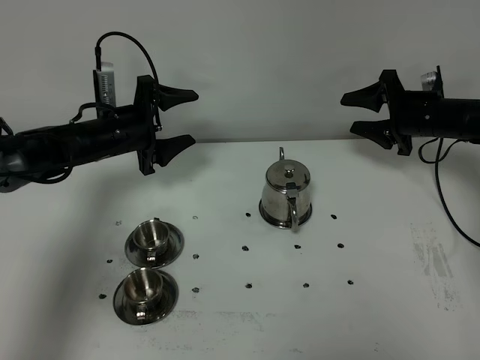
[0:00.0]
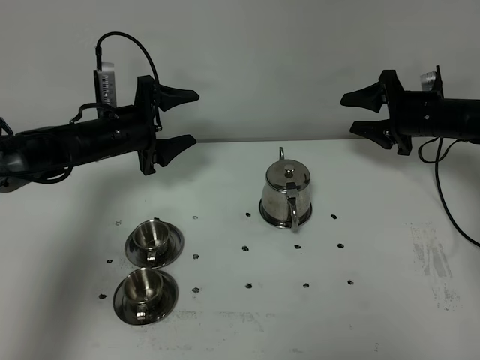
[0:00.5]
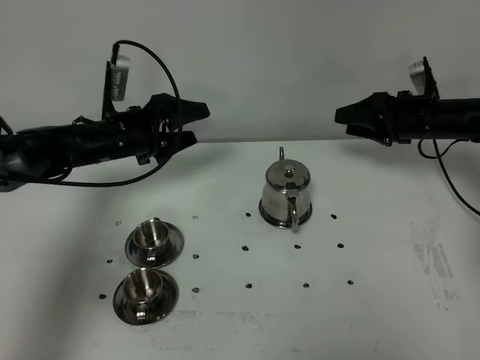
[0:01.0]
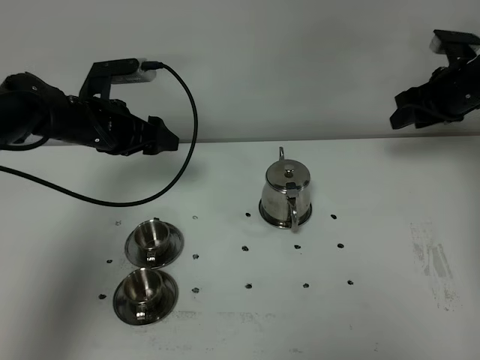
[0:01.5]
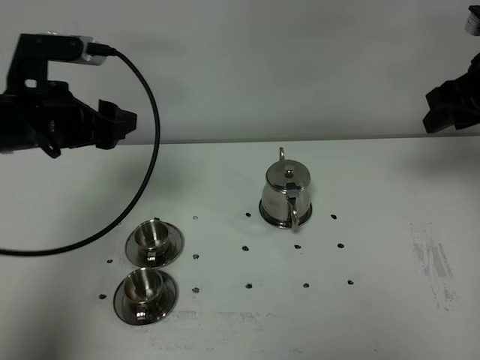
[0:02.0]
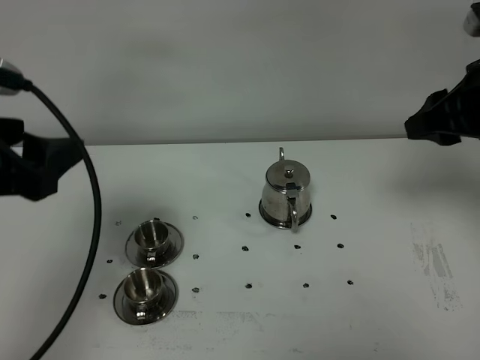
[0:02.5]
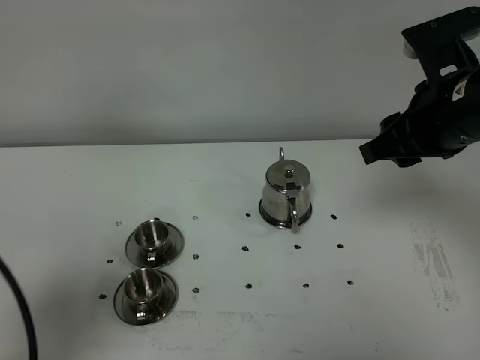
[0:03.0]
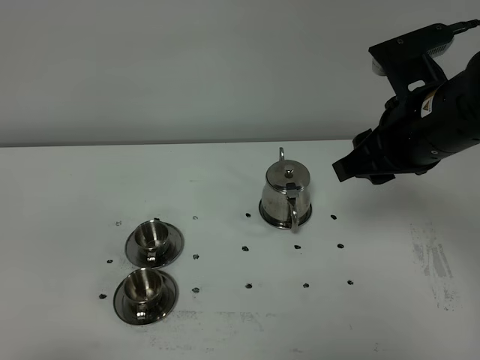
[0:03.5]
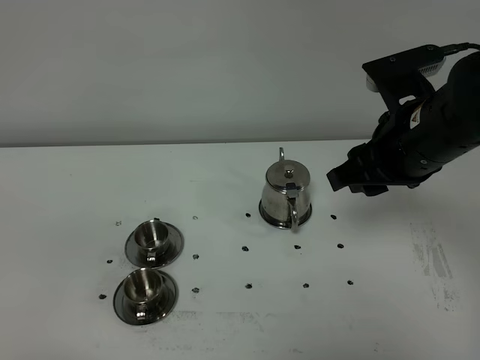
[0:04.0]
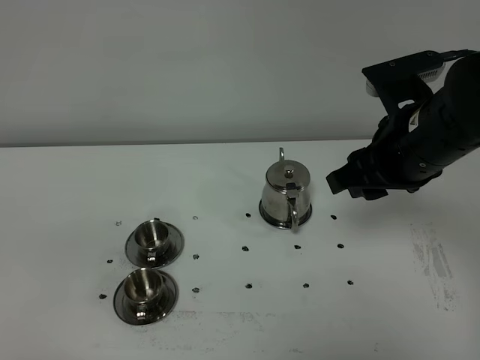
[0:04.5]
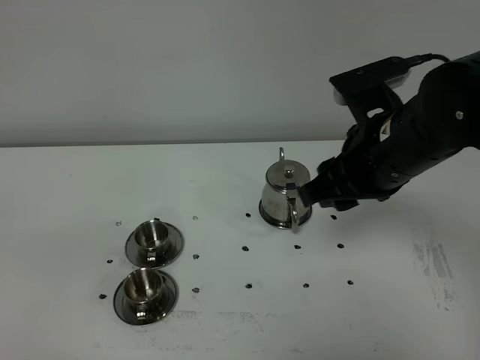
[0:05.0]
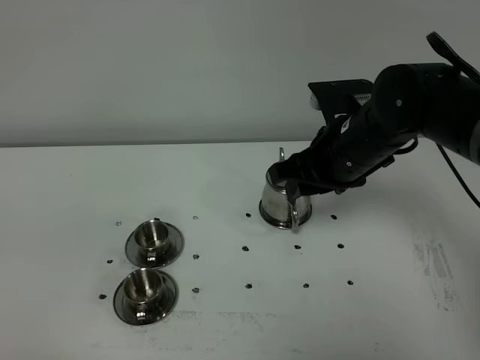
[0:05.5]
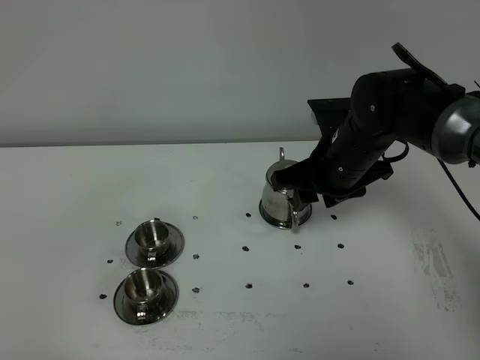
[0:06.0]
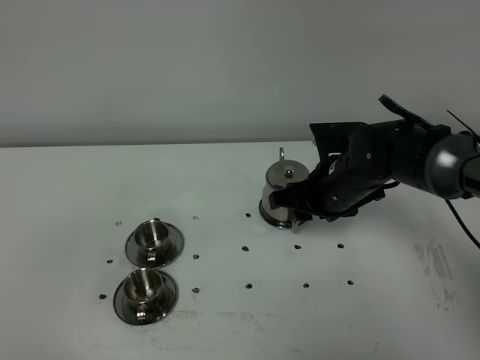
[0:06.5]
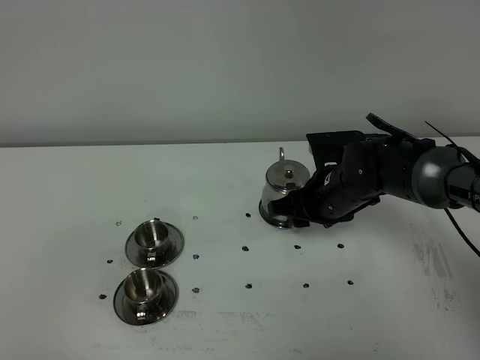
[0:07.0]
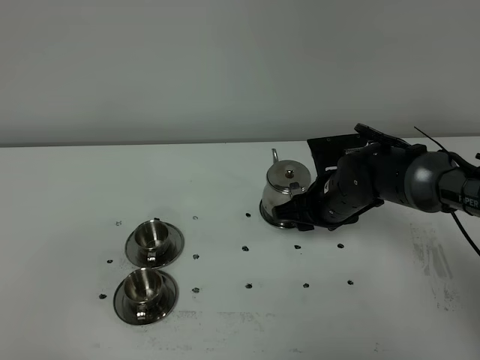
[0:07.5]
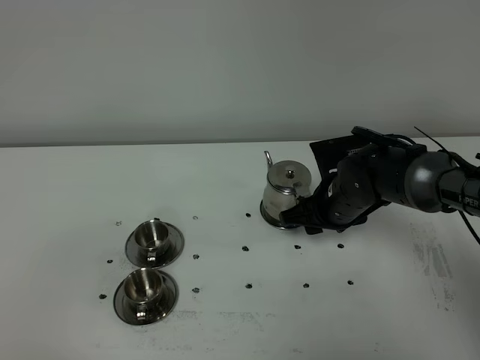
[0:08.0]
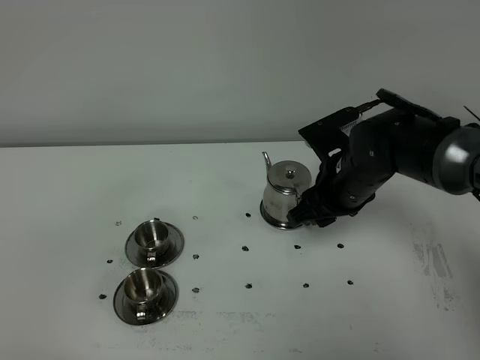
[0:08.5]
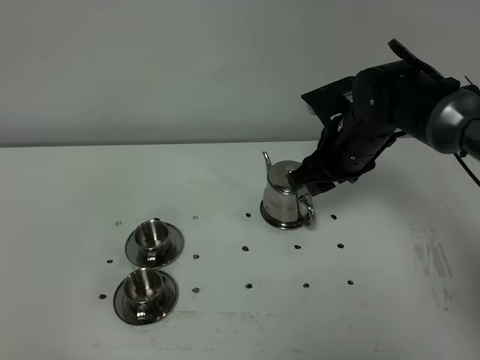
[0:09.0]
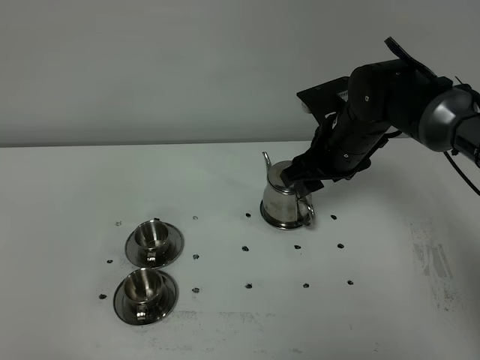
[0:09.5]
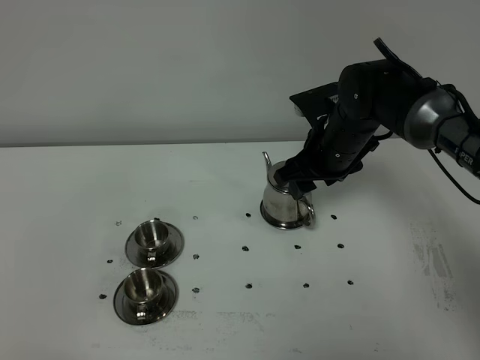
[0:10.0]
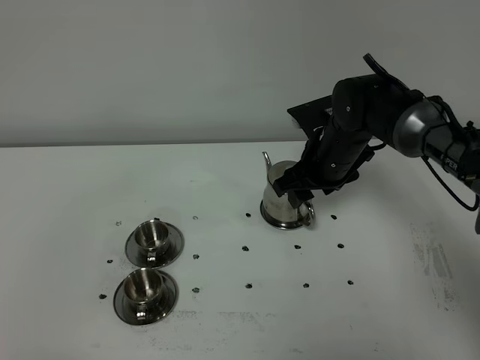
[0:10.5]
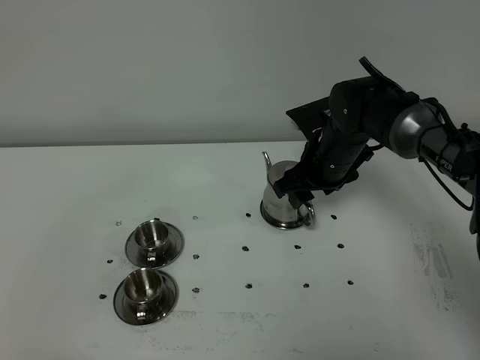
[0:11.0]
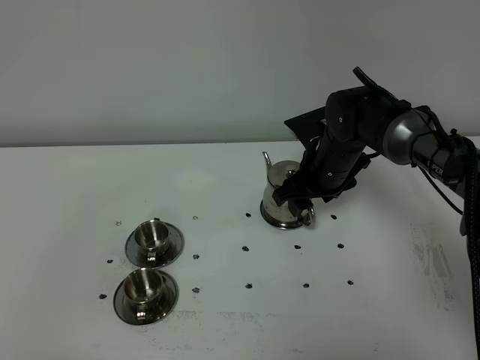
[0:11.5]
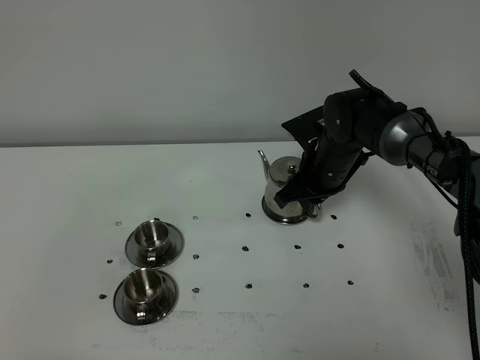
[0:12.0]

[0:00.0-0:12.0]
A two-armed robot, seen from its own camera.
Task of the whole recording: grasp the stainless steel teapot and pour the tea into the two stainless steel teacups one by one, put the stainless steel teapot back in its original place.
0:00.0 to 0:02.0: The grippers both shift upward and backward by about 20 cm.
0:02.0 to 0:04.0: The left gripper is displaced backward by some 35 cm. The right gripper moves to the left and backward, roughly 15 cm.
0:04.0 to 0:06.0: The right gripper travels downward, forward and to the left by about 15 cm.
0:06.0 to 0:08.0: The right gripper heads downward, covering about 10 cm.
0:08.0 to 0:10.0: The right gripper shifts about 5 cm upward.
0:10.0 to 0:12.0: The right gripper moves downward, about 5 cm, and closes its fingers.

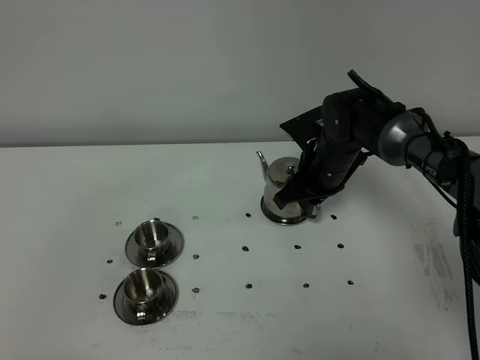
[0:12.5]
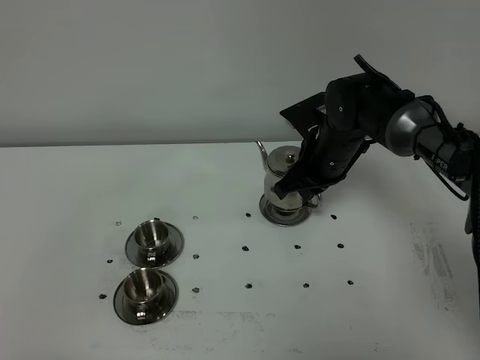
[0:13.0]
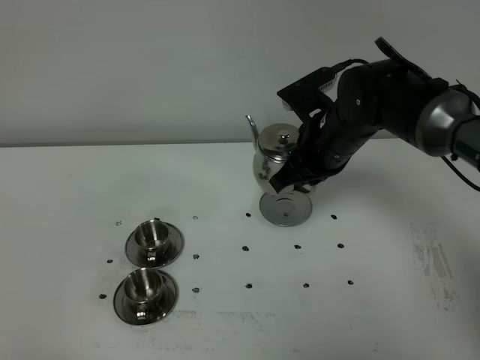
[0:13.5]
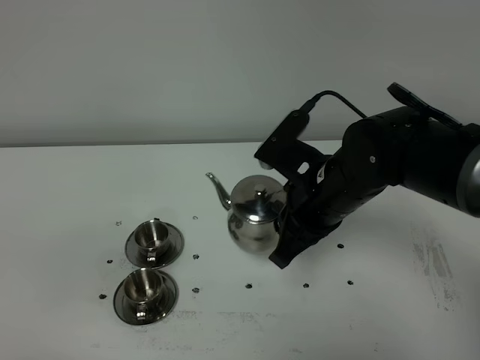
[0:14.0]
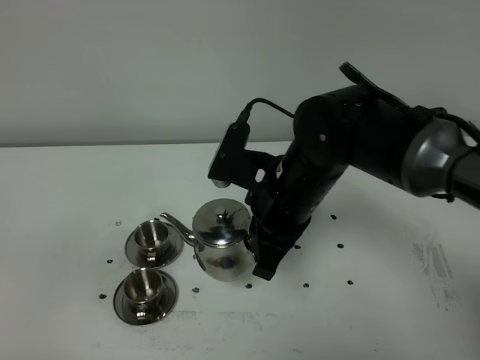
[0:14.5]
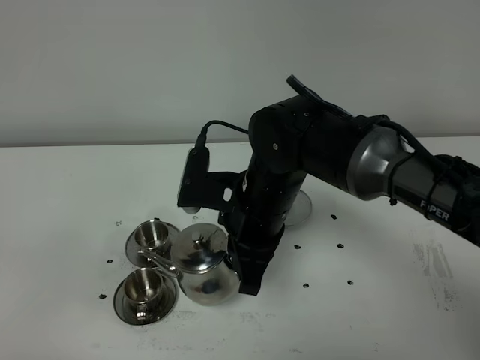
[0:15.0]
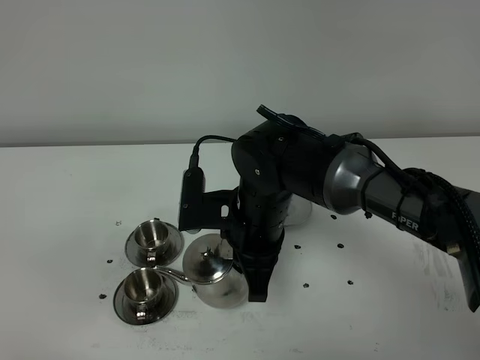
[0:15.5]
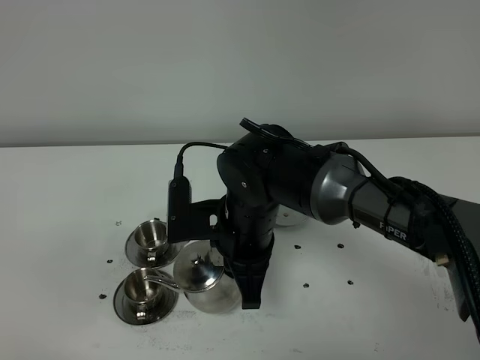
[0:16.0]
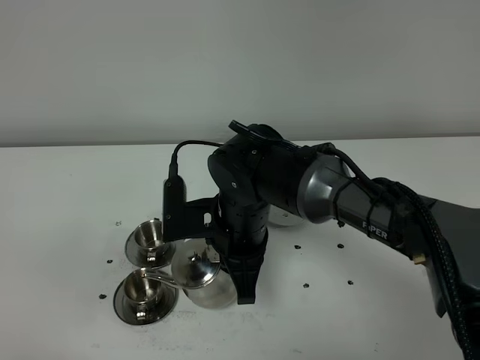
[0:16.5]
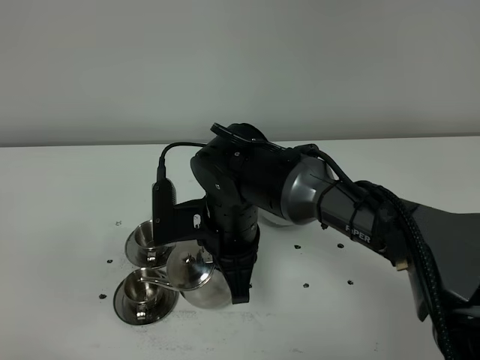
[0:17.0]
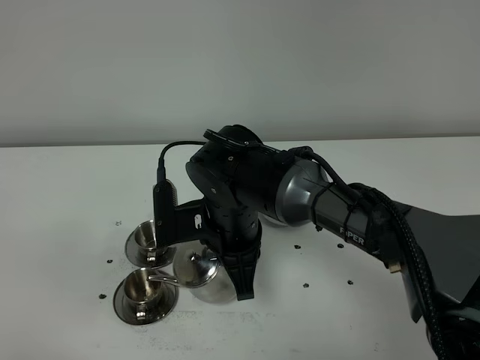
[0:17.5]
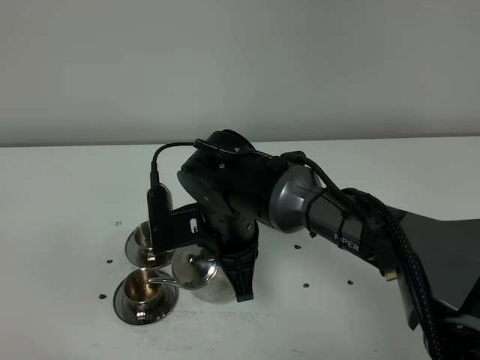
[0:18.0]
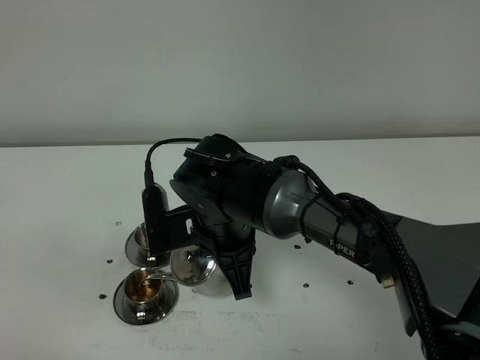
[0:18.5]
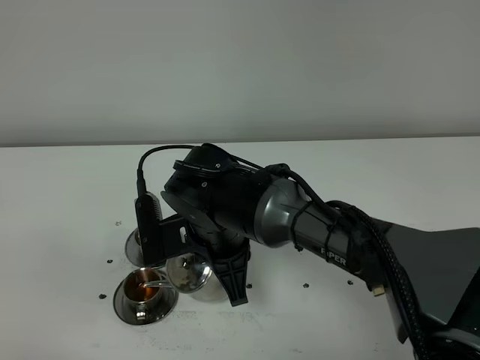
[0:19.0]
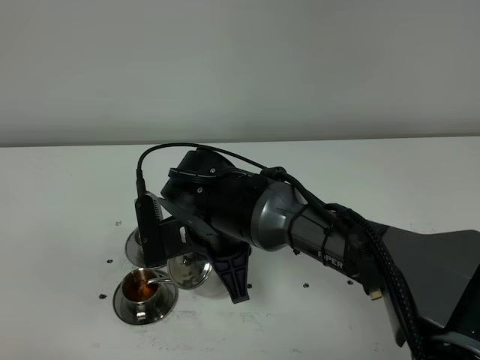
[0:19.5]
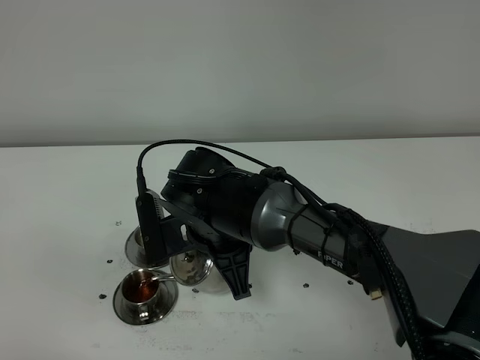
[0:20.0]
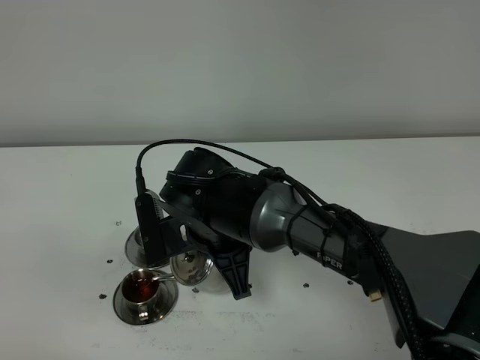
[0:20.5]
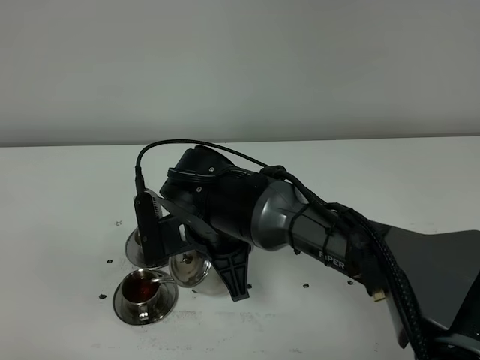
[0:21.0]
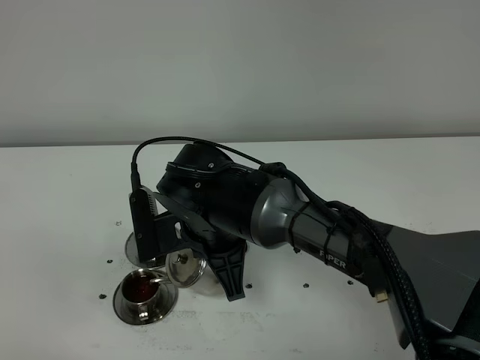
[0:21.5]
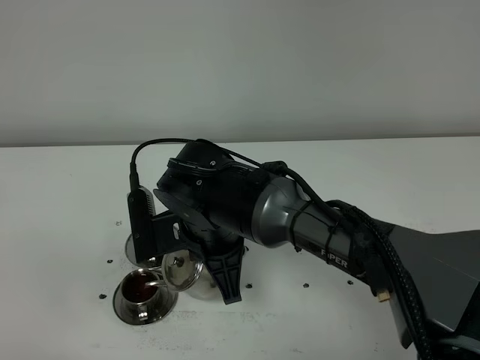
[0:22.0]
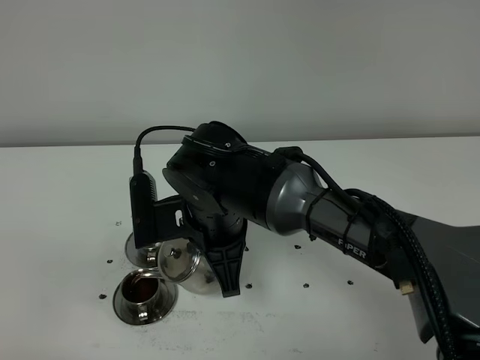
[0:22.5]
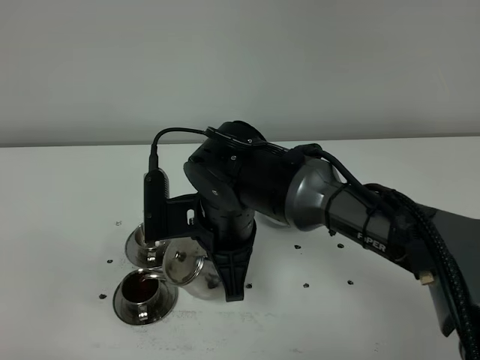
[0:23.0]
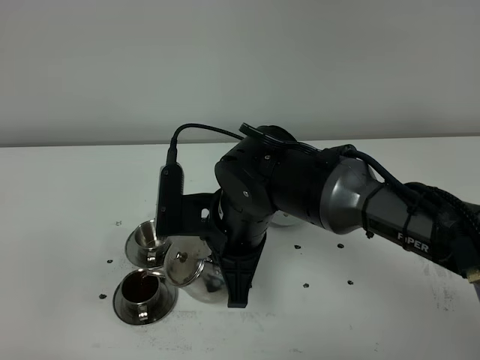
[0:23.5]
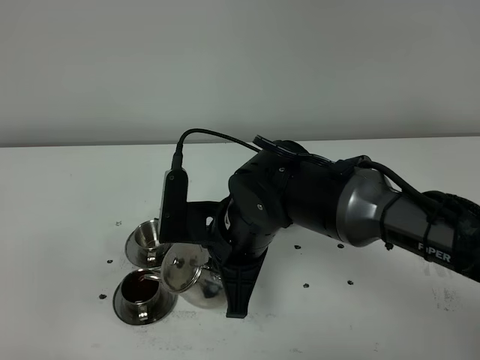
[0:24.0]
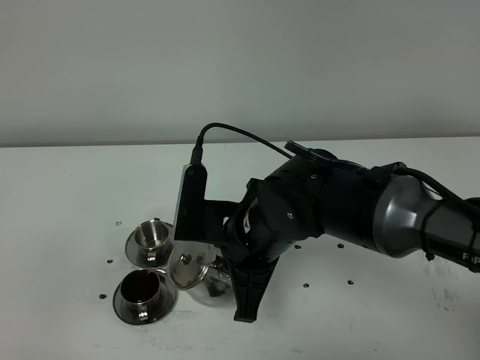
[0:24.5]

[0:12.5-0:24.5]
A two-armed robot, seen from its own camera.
Task of the whole recording: grasp the stainless steel teapot and pour the tea into the two stainless steel teacups one by one, put the stainless steel teapot back in its original place.
0:12.5 to 0:14.5: The right gripper goes some 15 cm backward and upward.
0:14.5 to 0:16.5: The right gripper travels to the left and downward by some 10 cm.
0:16.5 to 0:22.5: There are only small adjustments of the grippers.
0:22.5 to 0:24.5: The right gripper travels to the right by some 5 cm.

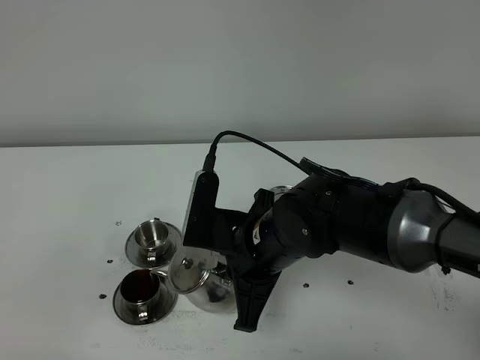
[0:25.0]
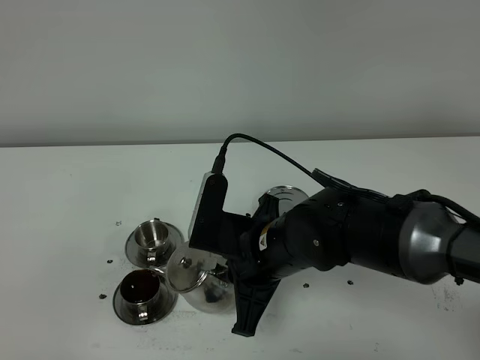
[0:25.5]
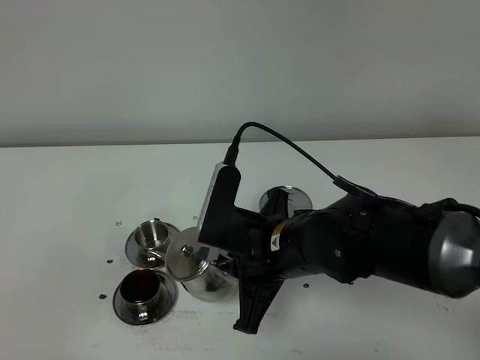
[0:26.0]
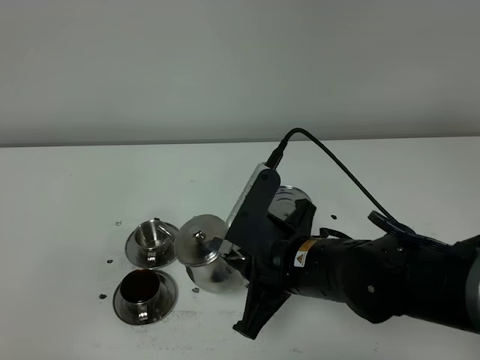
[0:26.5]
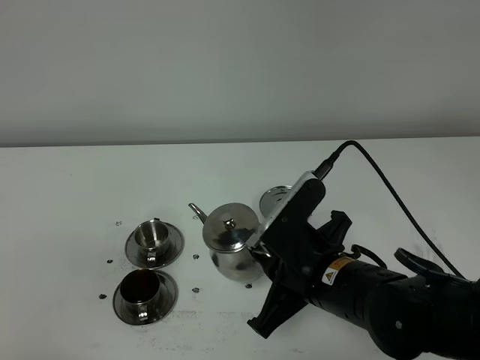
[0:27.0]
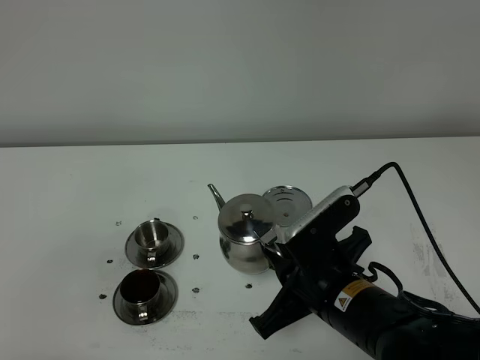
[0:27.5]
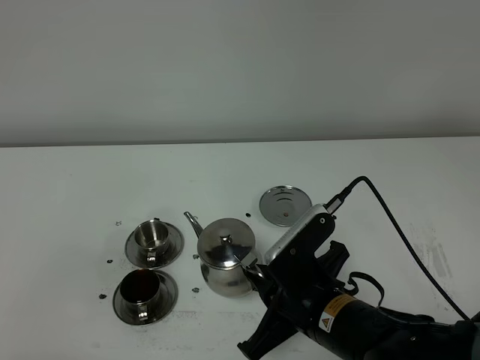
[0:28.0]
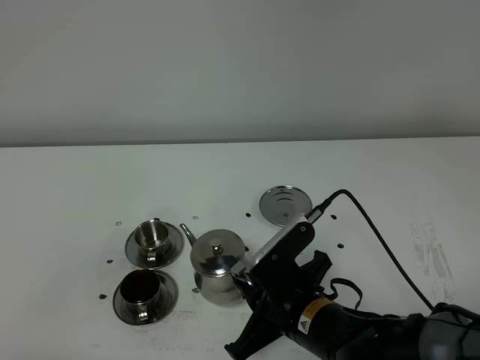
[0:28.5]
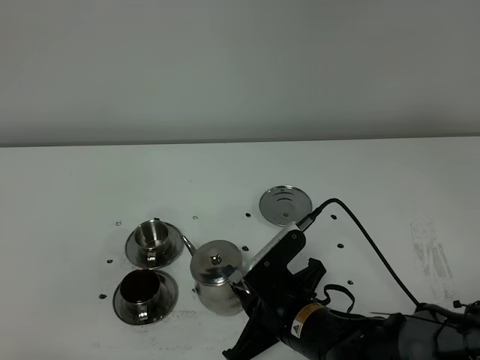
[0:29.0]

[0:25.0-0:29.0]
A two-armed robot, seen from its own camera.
Task of the whole recording: grasp the stainless steel teapot and pour the tea into the two stainless steel teacups one by one, put the stainless steel teapot back in its original place.
0:25.0 to 0:27.0: The right gripper shifts some 5 cm to the right.
0:27.0 to 0:29.0: The right gripper shifts some 10 cm downward.
